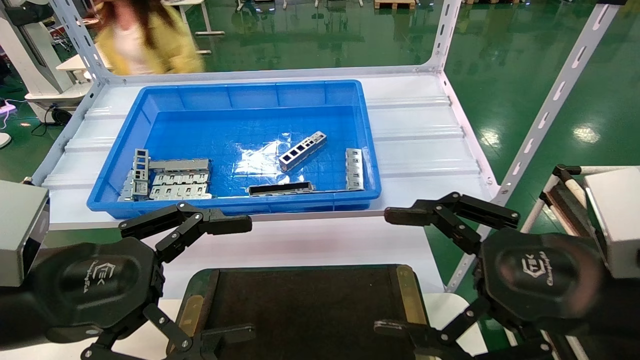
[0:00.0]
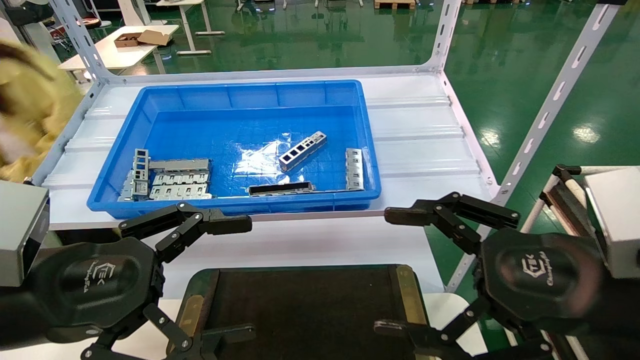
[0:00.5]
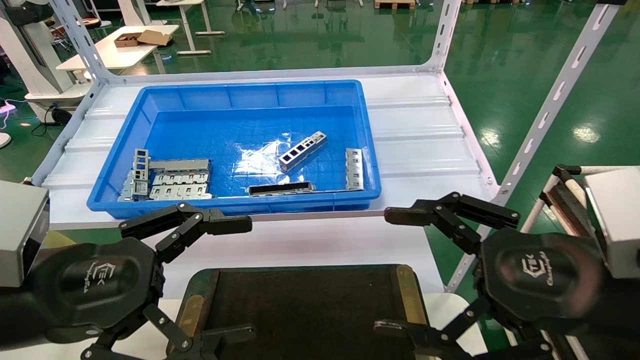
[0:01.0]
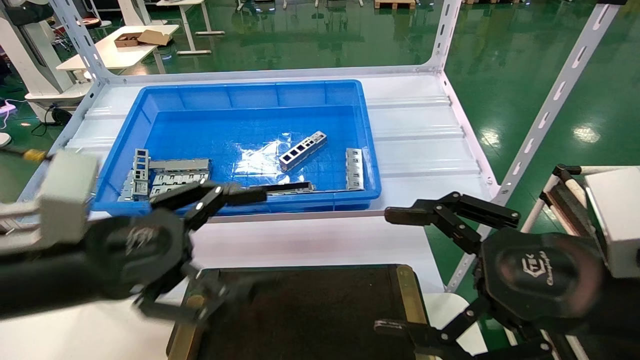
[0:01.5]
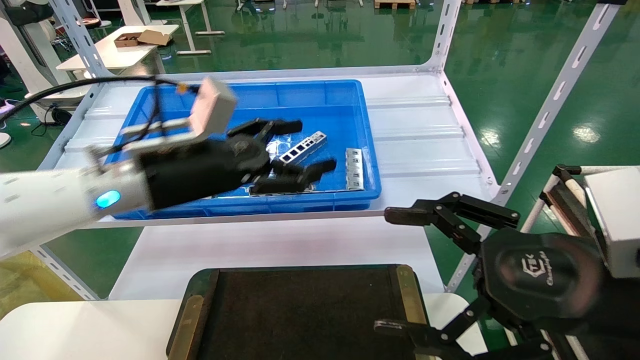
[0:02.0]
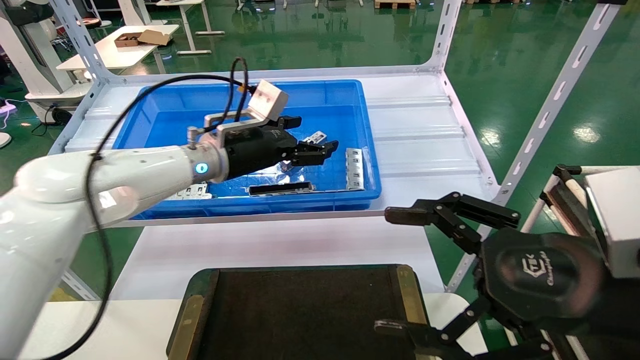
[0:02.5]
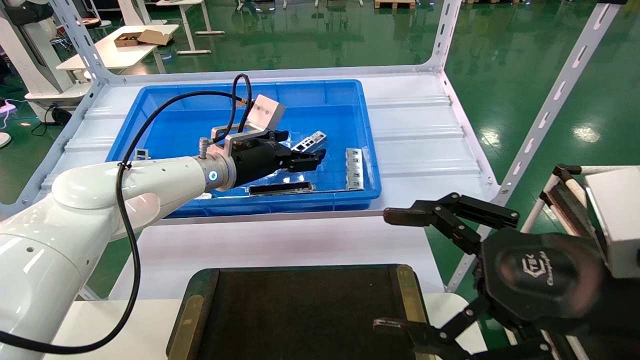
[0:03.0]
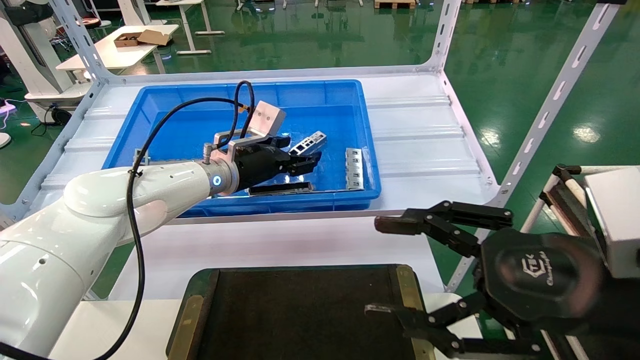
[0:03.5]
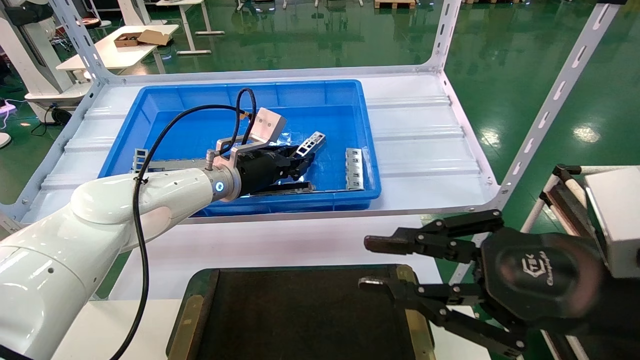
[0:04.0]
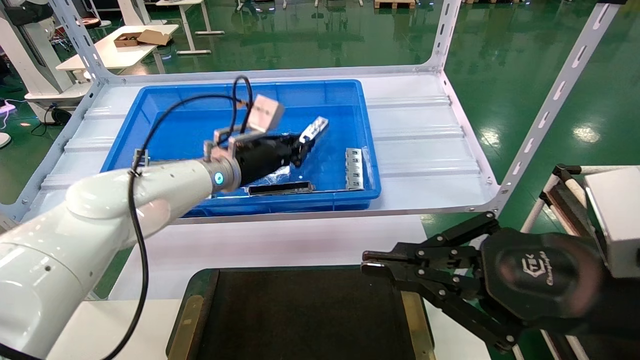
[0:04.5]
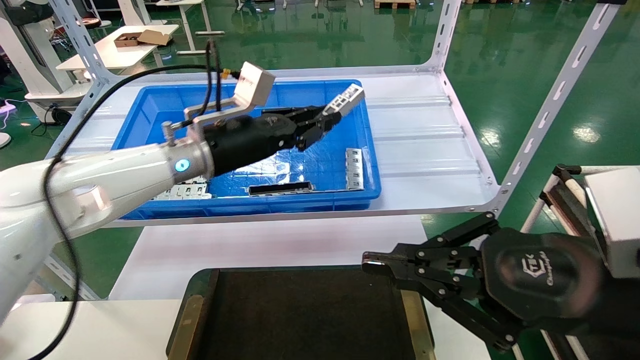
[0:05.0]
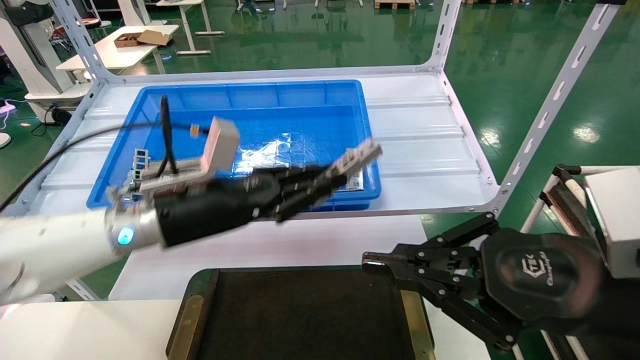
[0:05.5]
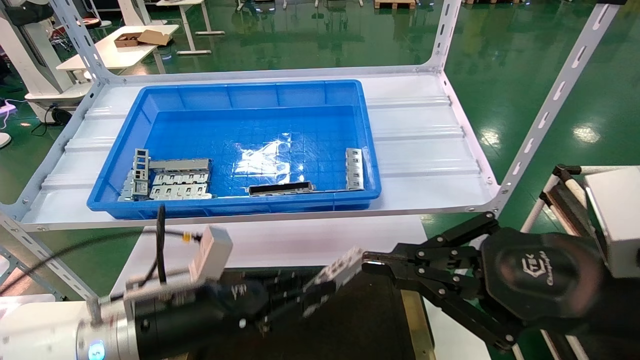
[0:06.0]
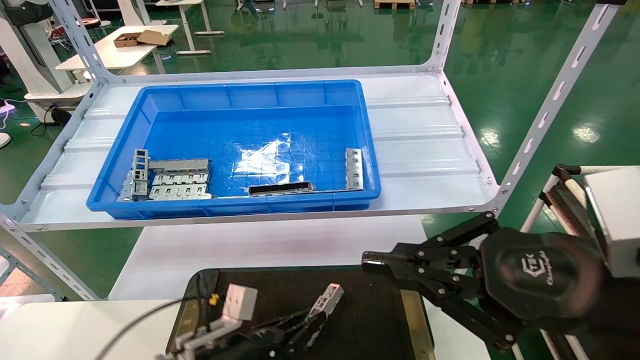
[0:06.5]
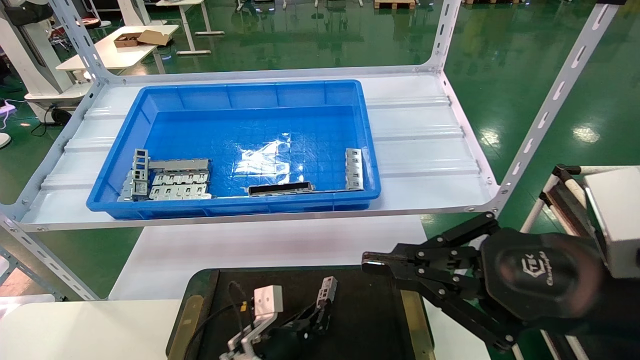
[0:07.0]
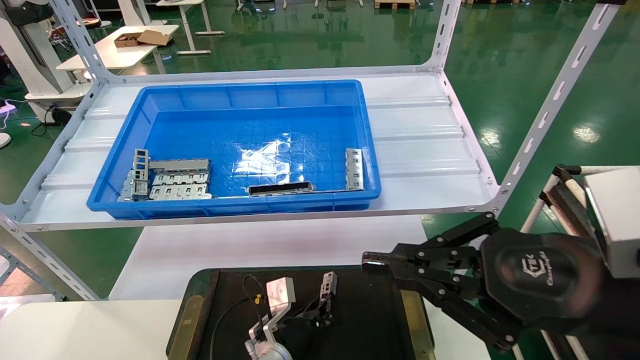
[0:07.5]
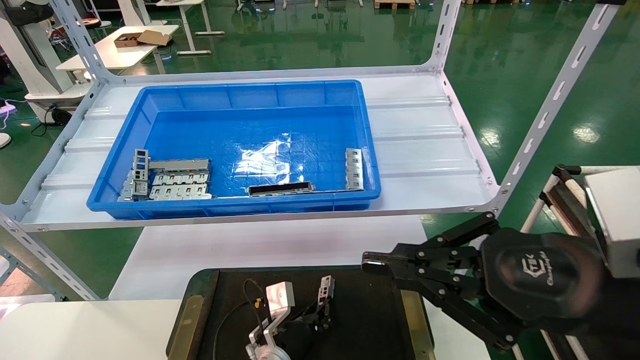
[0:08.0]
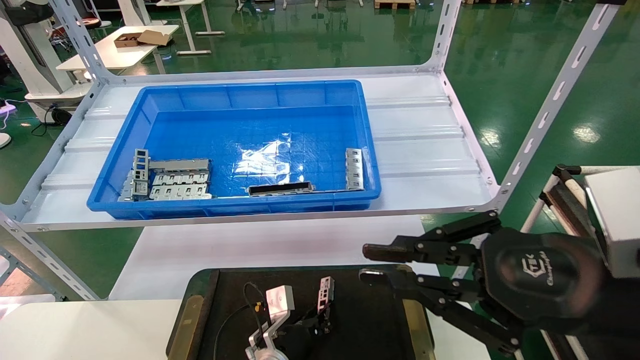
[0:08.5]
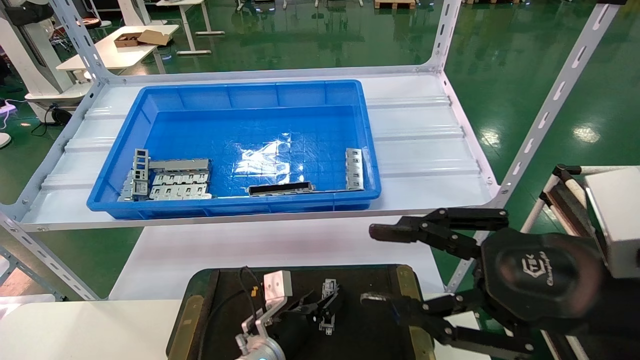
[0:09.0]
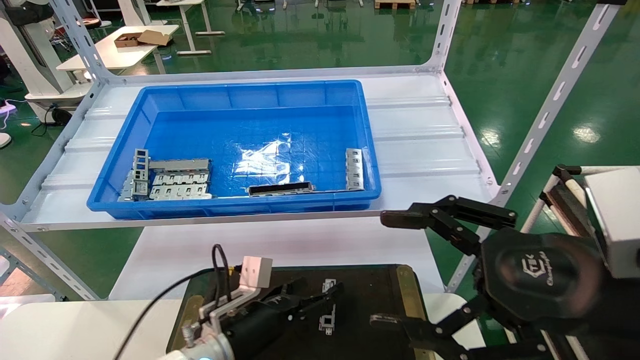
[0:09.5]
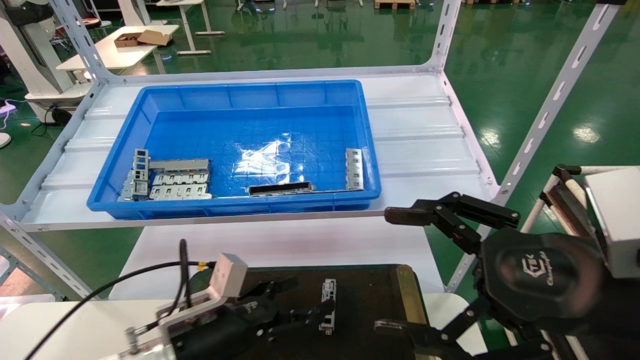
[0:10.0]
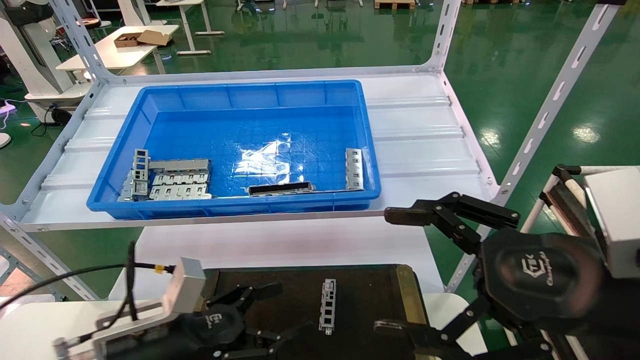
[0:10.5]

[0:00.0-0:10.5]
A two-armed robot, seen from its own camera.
Task of the whole recording: Grasp the part with one hand and place it on the black container.
Step, 0:01.5 to 0:04.0: Pick up the front USB bracket from the feeding area.
Step, 0:04.5 to 0:08.0: Place the front USB bracket into the box.
0:00.0 to 0:02.0: The left gripper shifts approximately 20 cm forward and to the right.
0:02.0 to 0:04.0: The left gripper heads forward, covering about 15 cm, and closes up; the right gripper closes up.
0:04.0 to 0:06.5: The left gripper moves downward and backward, some 30 cm, while the right gripper closes its fingers.
0:06.5 to 0:08.5: The left gripper moves to the right, forward and downward, about 15 cm.
0:08.5 to 0:10.5: The left gripper travels to the left, upward and backward by roughly 25 cm, and opens, while the right gripper opens up.
